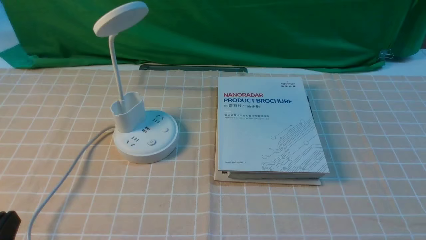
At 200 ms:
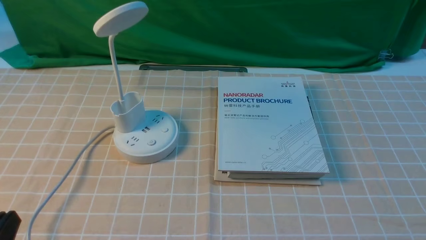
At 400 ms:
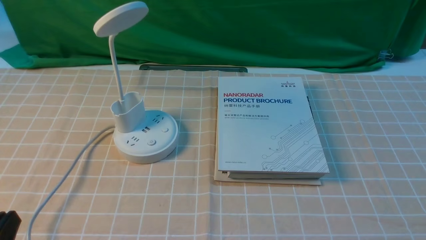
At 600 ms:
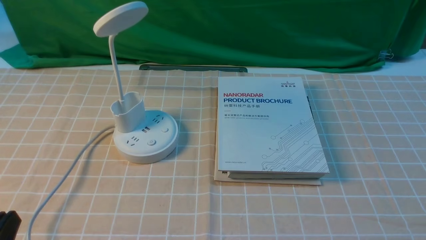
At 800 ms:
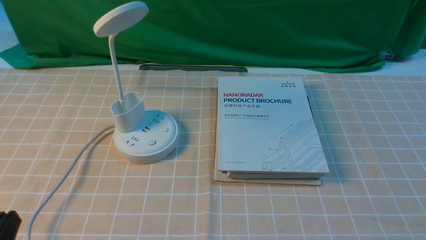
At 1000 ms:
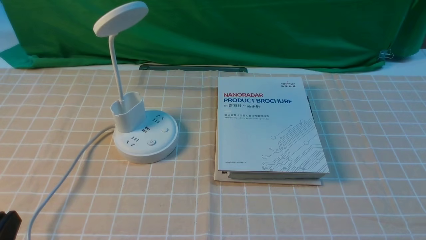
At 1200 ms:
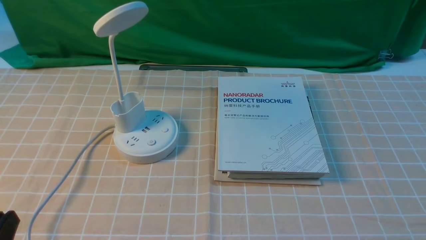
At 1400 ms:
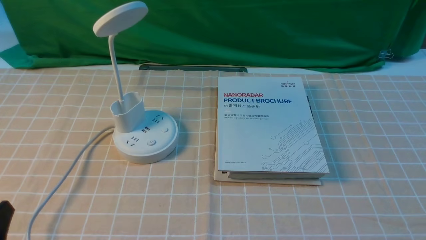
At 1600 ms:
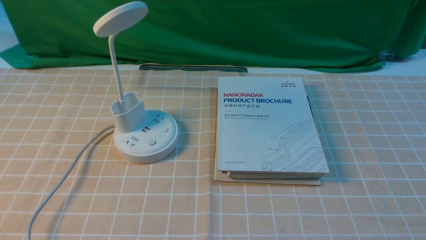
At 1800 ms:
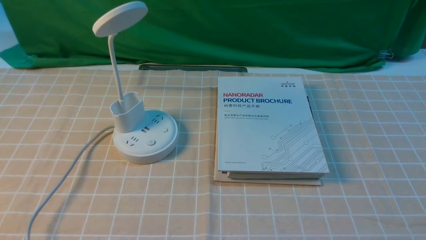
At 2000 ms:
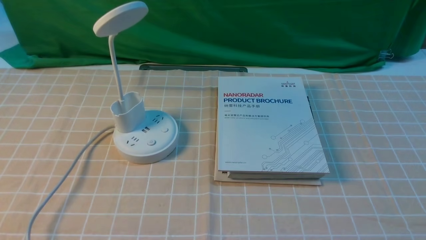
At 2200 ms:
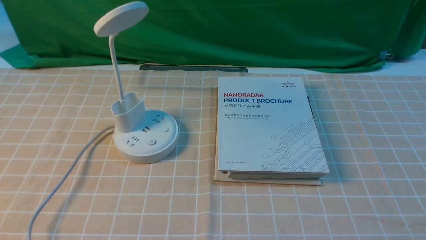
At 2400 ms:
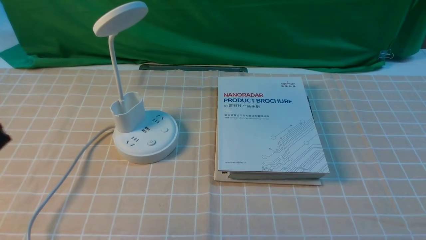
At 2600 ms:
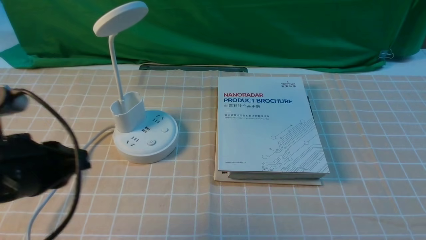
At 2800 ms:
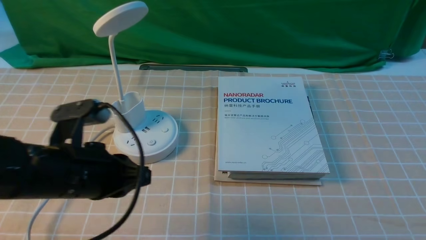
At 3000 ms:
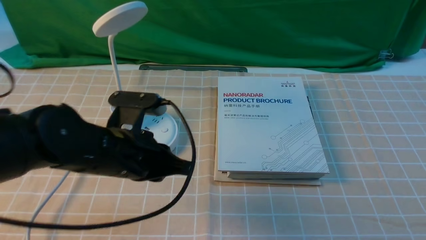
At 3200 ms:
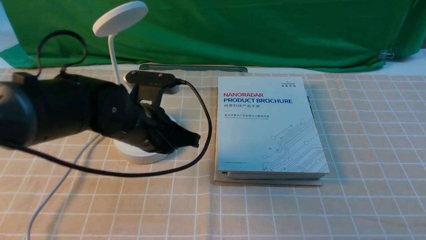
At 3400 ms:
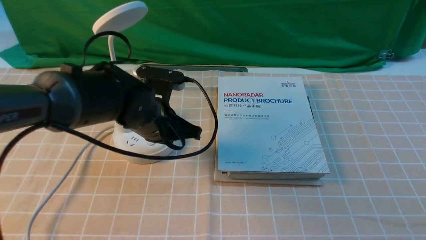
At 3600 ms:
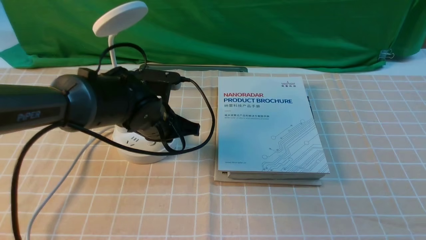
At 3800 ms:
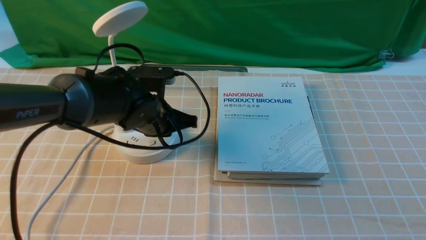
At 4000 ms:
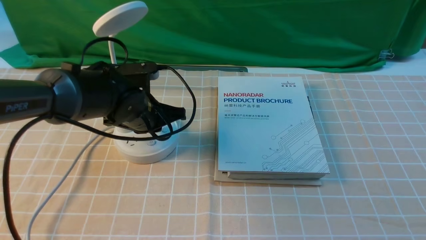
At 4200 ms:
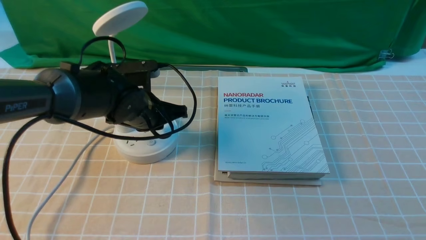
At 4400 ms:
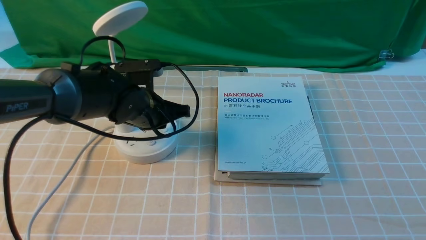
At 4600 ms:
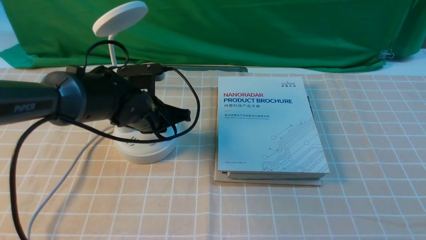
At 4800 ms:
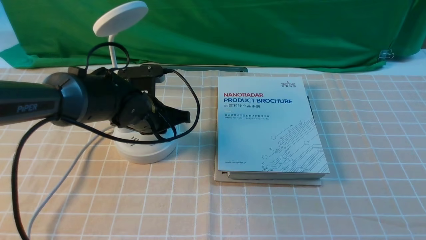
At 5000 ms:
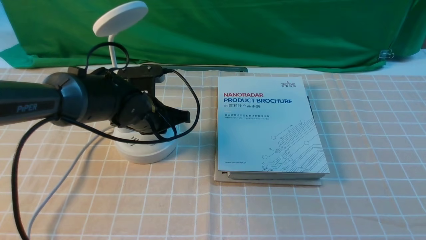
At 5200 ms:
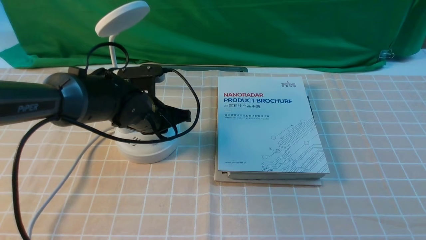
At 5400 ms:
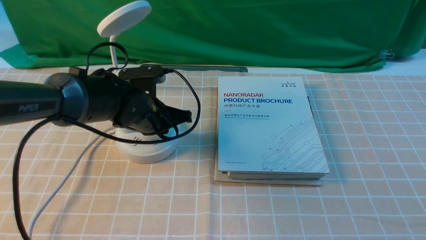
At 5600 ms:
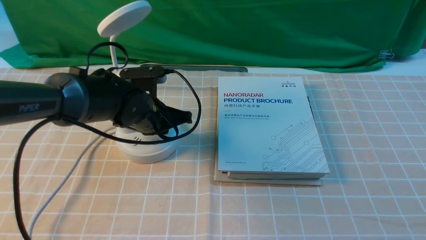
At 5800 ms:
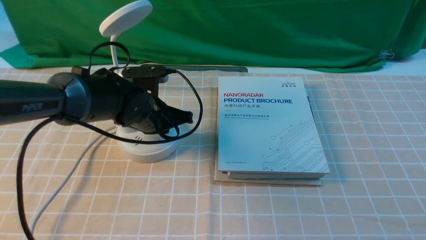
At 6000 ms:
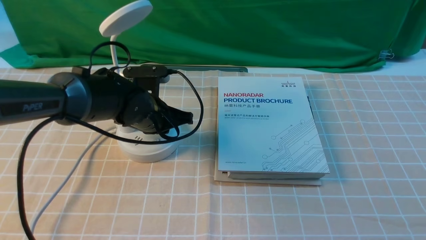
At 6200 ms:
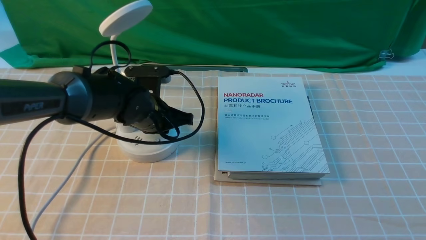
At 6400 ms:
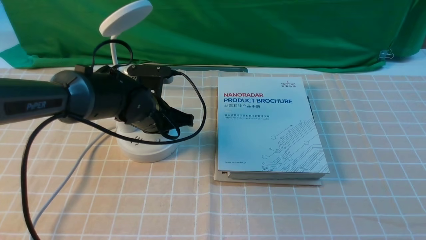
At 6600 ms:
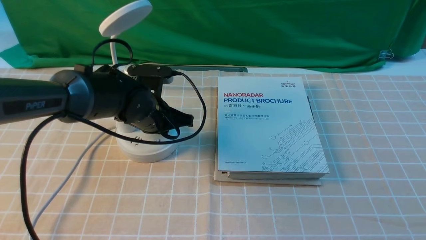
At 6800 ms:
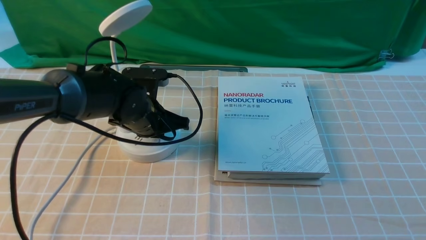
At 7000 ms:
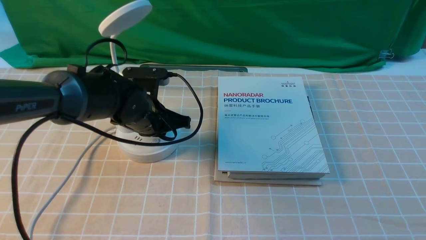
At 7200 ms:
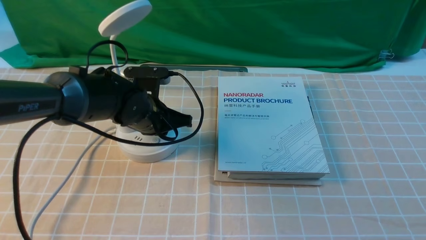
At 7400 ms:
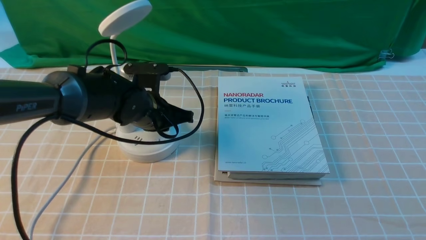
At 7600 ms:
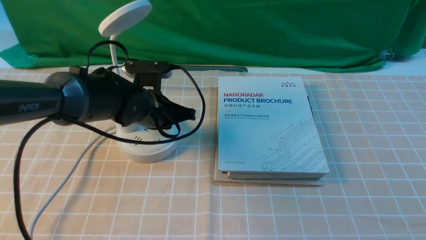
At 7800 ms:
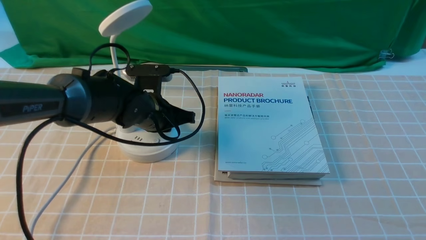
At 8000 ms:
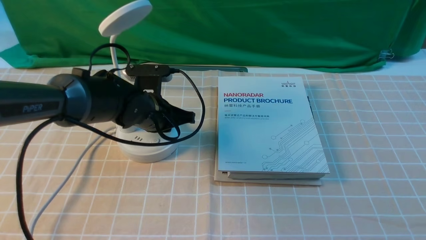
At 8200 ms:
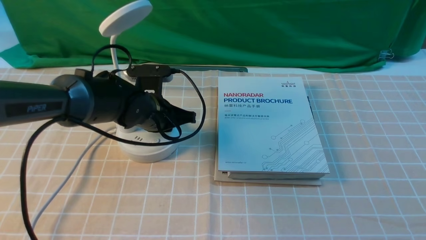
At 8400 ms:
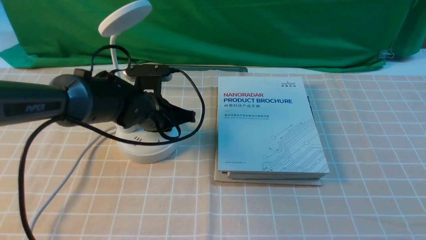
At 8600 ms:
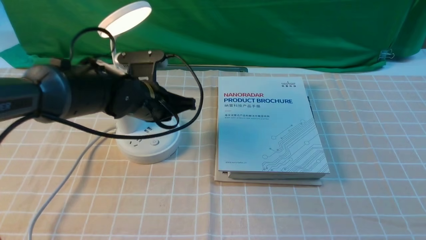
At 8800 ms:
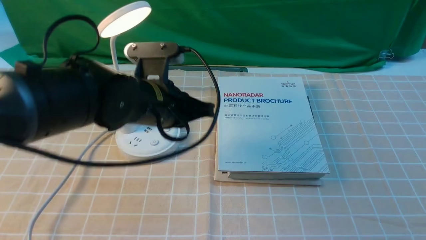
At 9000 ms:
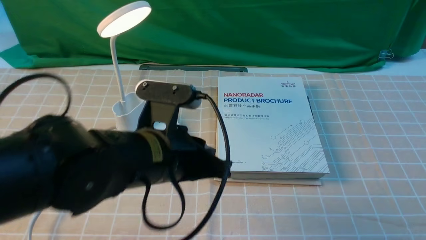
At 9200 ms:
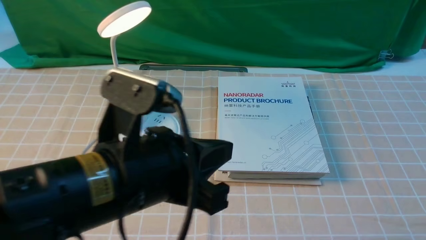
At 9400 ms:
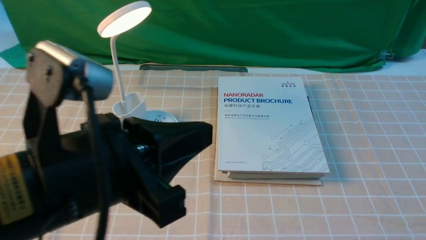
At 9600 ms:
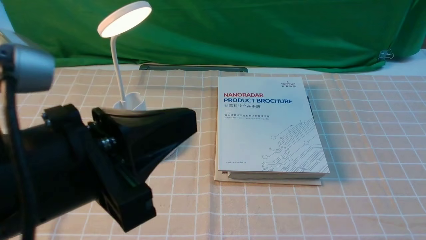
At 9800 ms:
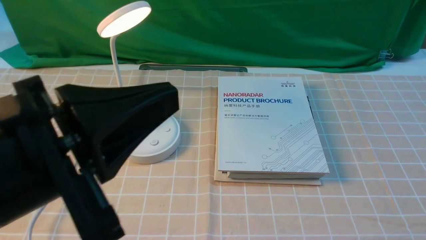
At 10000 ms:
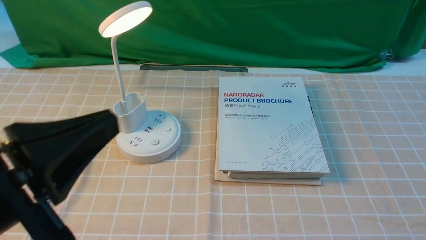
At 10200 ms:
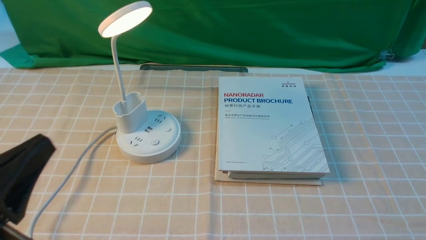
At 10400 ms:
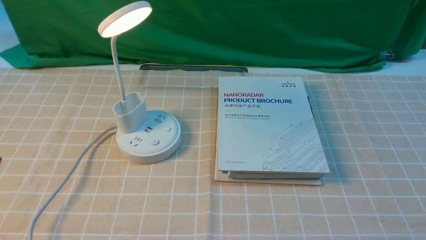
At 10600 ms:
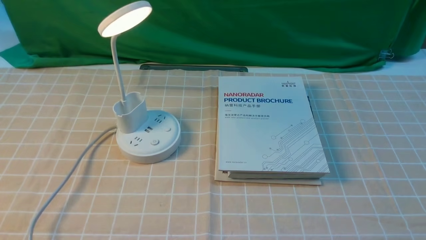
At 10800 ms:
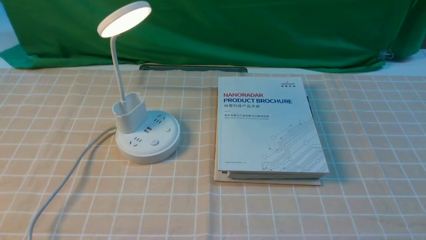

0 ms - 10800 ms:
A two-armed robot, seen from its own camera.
Step, 0 ms - 8800 ms: use the left arm to press the button switch on the lamp holder.
1600 ms - 3000 ms: The left gripper shifts roughly 25 cm forward and to the right, and closes its fingers.
3000 ms - 4600 ms: The left gripper moves forward and downward, roughly 15 cm.
4600 ms - 7800 ms: The grippers stay close to where they were, moving slightly.
7800 ms - 9200 ms: The left gripper moves backward and upward, approximately 25 cm.
9200 ms - 10800 ms: The left gripper goes some 20 cm to the left, downward and backward.

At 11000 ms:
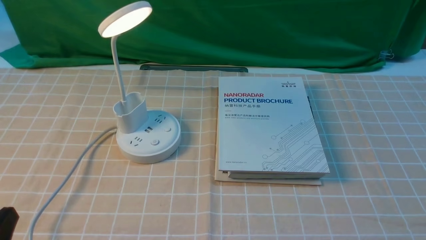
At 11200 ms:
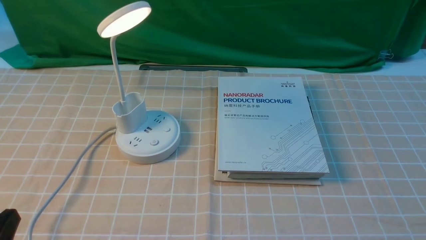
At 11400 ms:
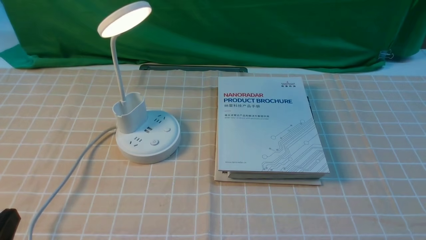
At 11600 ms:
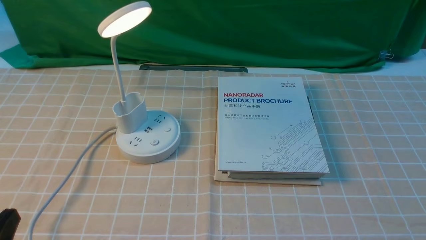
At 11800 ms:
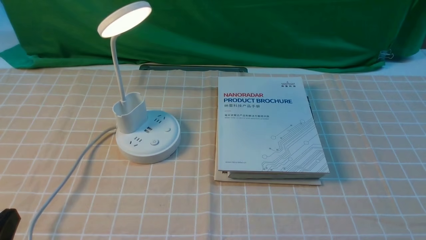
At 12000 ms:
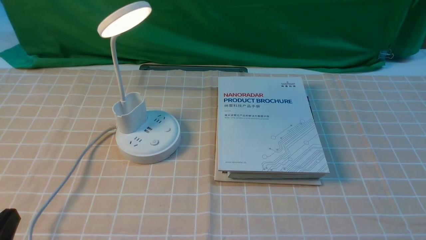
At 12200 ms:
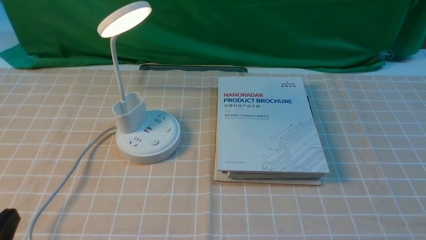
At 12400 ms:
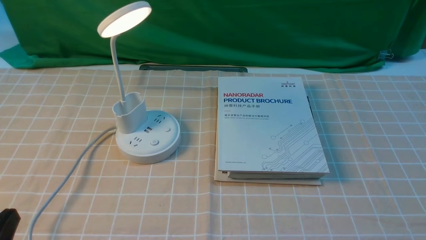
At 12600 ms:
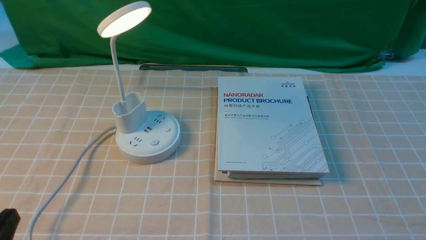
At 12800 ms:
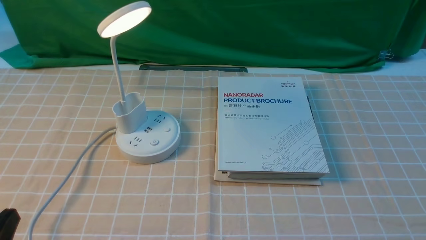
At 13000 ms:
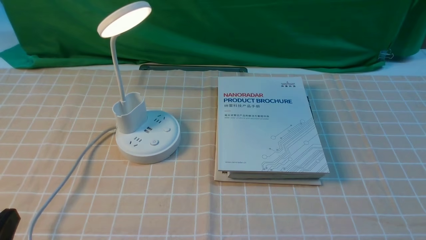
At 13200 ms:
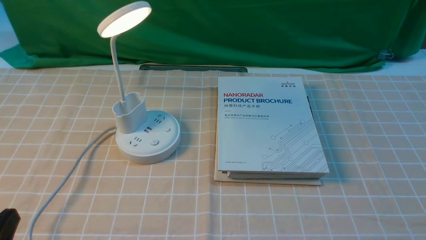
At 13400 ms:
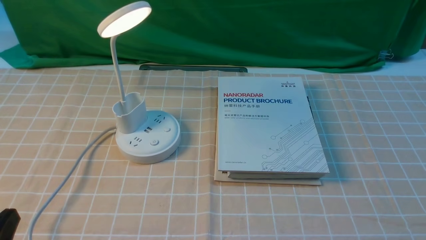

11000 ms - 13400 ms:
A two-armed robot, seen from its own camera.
12200 ms - 13400 ms: Both grippers stay put.
